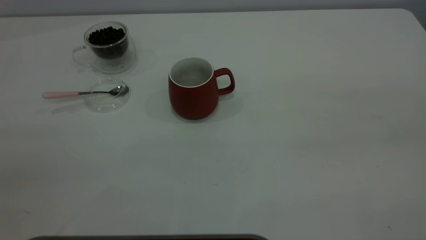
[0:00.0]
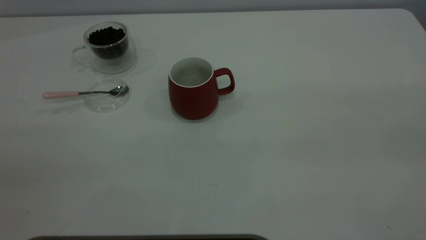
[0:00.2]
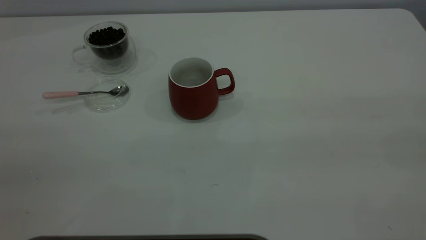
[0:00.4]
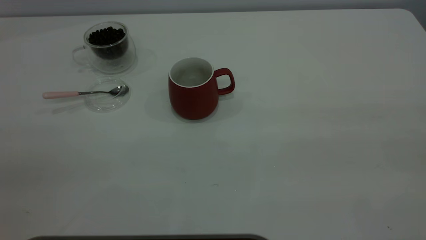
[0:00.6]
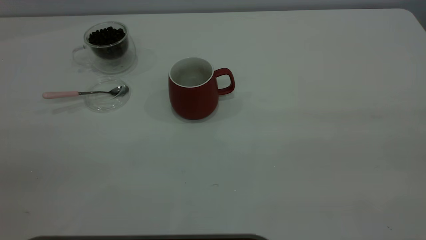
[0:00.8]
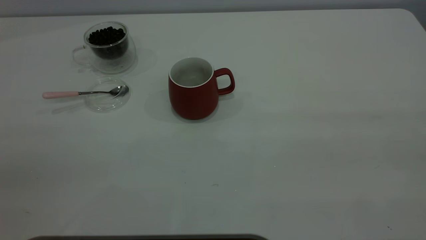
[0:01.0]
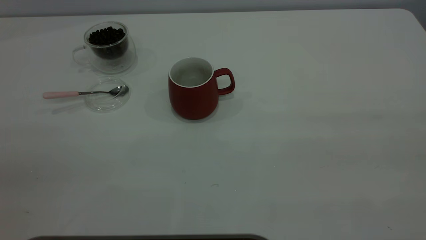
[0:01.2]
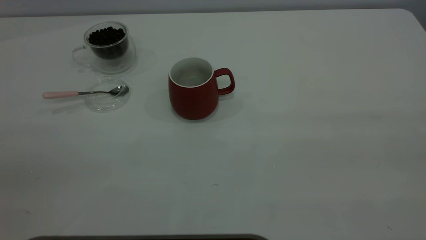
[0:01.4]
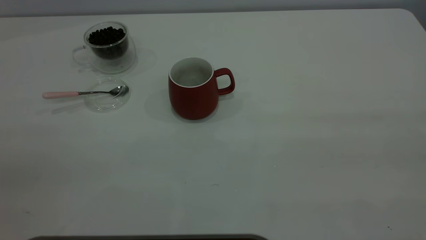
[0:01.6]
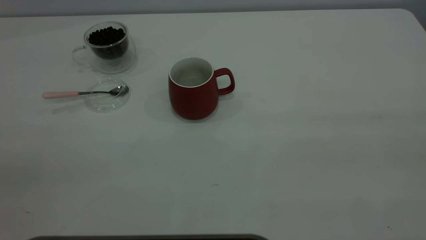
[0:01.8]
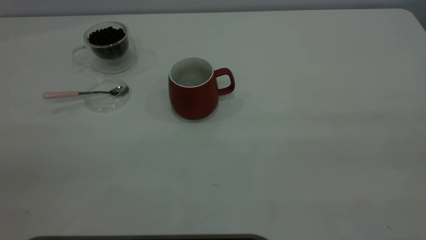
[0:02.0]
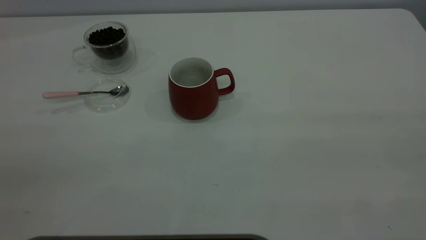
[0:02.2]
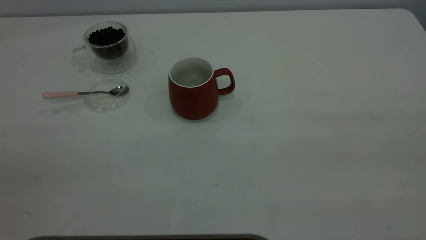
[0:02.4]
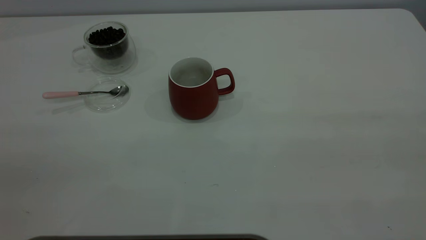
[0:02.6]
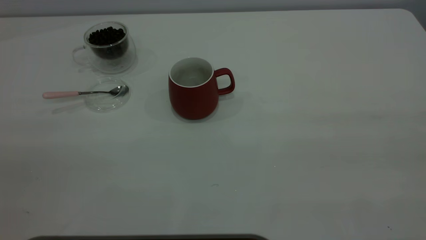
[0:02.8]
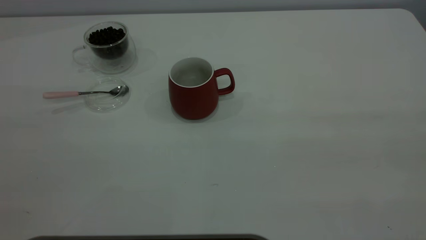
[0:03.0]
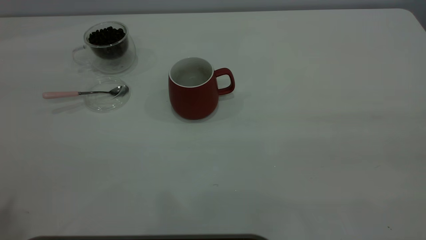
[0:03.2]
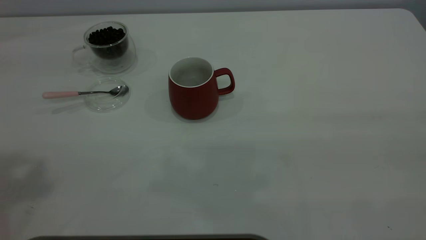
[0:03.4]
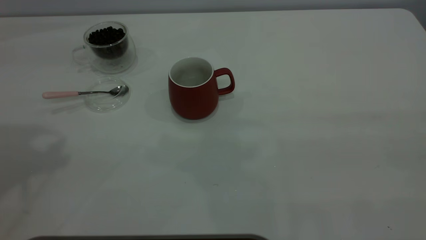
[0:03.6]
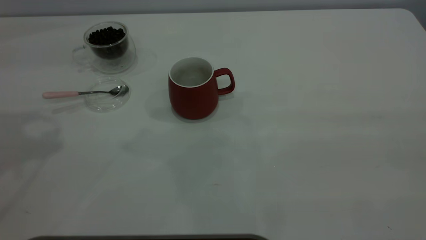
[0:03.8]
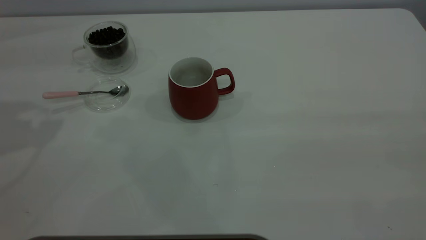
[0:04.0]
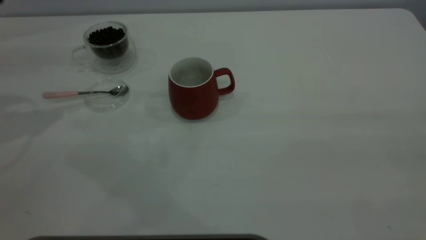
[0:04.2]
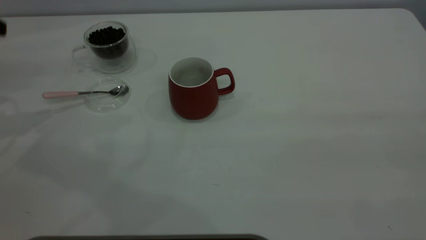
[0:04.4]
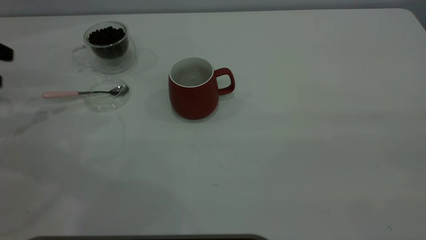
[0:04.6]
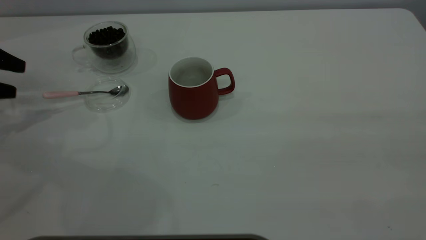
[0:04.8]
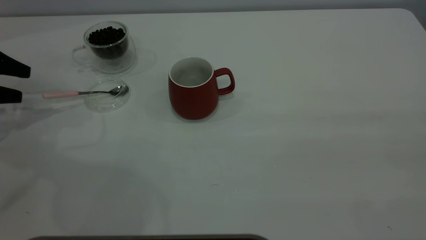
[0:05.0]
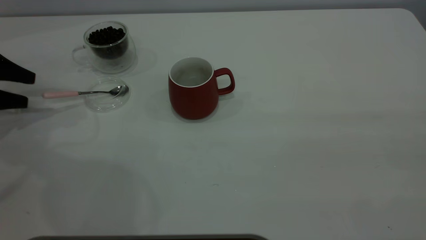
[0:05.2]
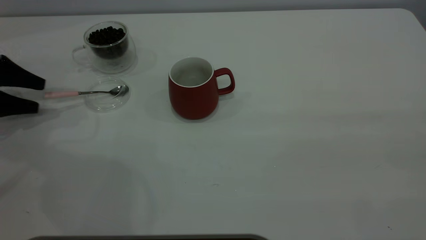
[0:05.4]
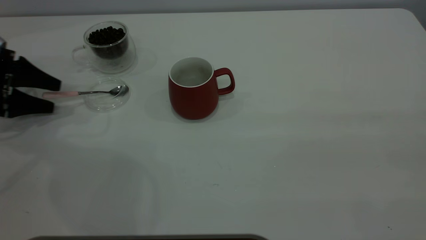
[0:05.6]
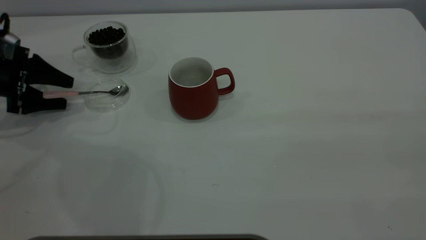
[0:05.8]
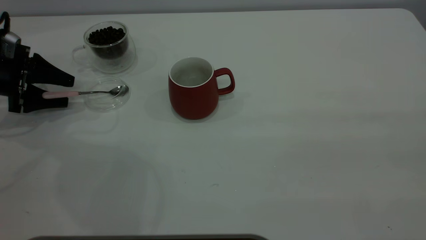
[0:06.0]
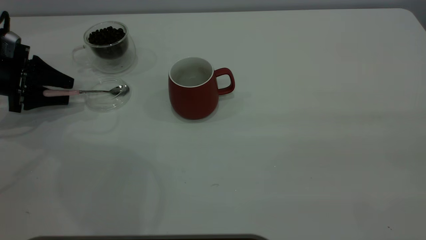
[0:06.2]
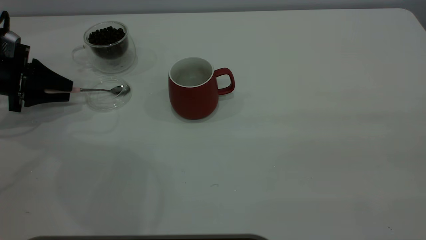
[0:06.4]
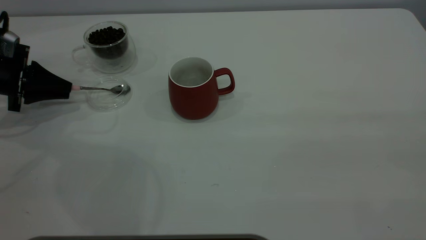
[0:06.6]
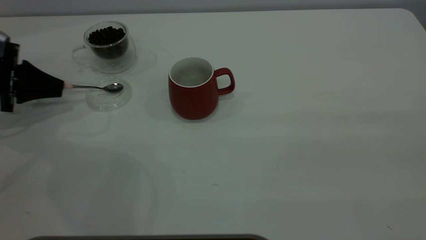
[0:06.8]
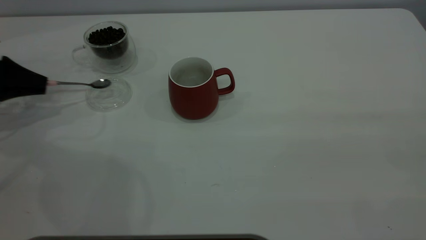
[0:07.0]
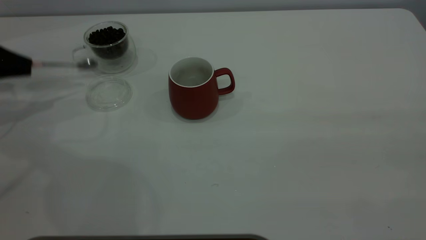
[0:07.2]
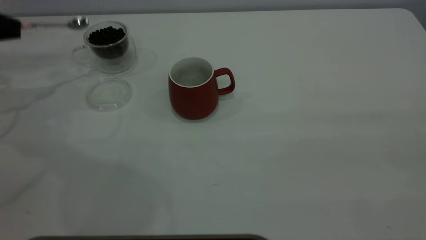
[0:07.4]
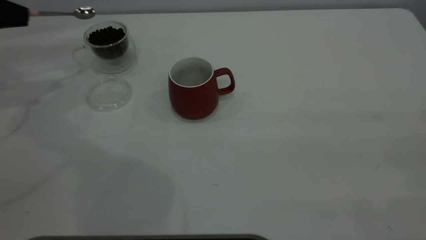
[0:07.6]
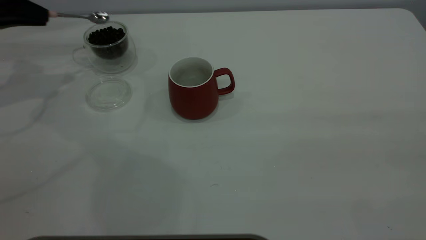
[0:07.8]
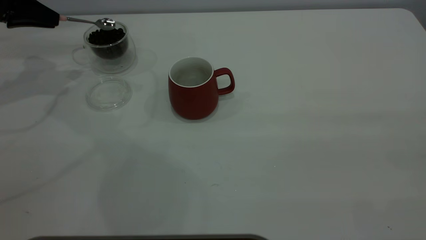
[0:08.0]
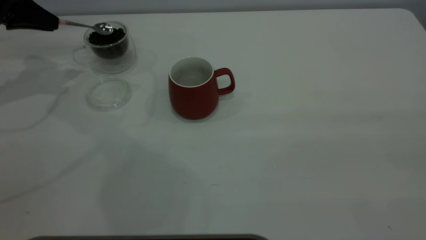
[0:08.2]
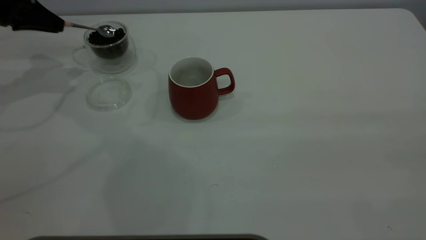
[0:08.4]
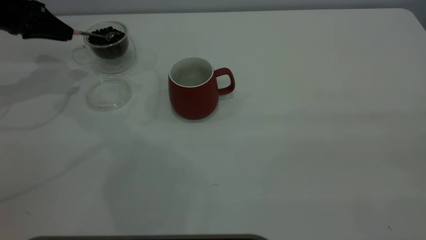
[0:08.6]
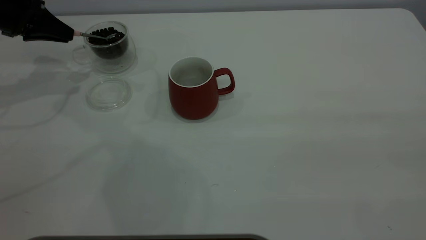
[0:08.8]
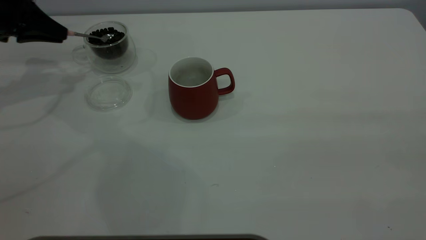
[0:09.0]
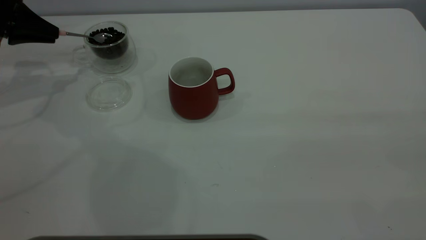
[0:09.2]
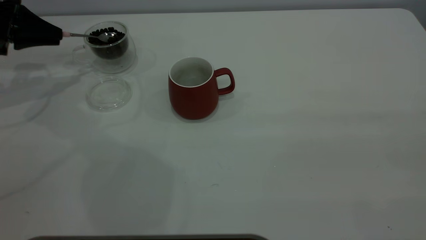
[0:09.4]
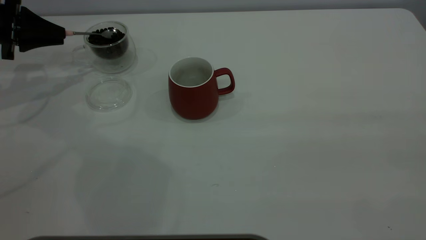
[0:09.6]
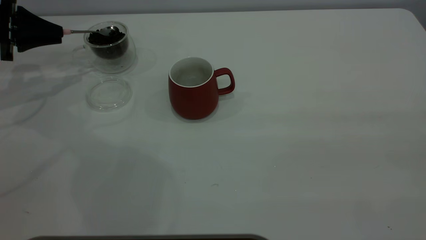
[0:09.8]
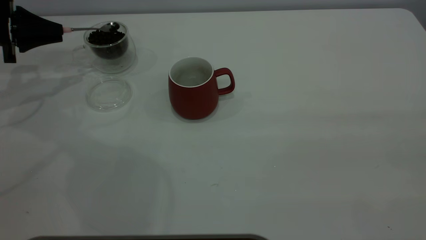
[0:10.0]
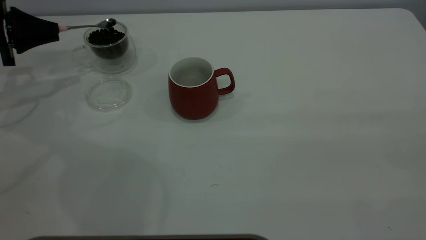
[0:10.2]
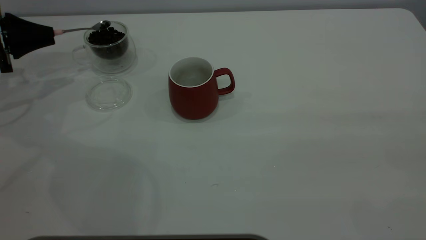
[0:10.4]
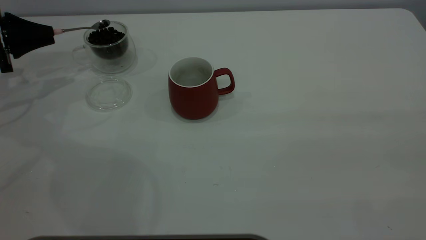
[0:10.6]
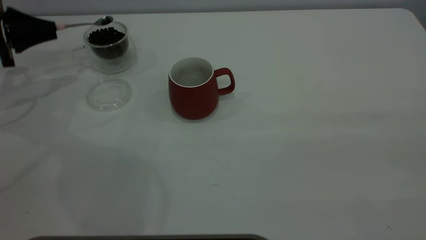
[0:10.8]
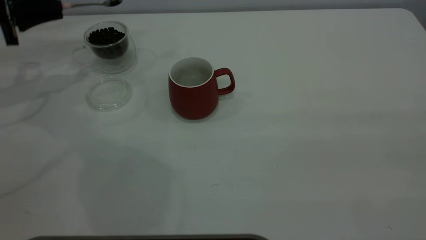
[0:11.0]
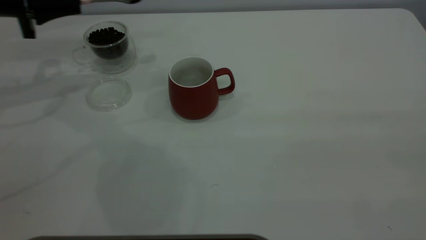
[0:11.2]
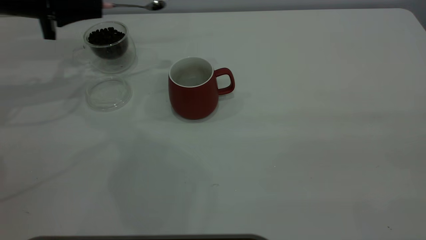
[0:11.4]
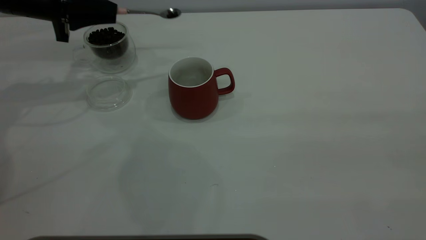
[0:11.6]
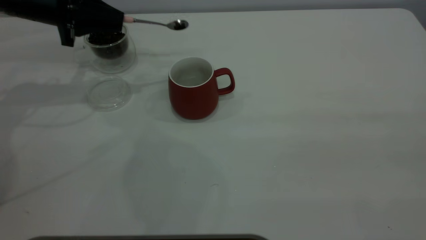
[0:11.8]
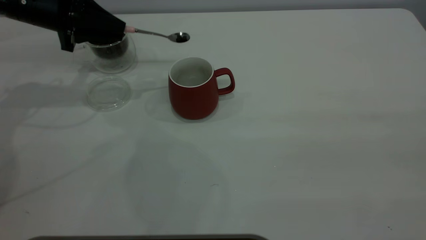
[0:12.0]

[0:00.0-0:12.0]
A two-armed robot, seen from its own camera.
Task of the whole recording: the right gripper place the red cup in the center of the table, the left gripper take the pink spoon from the cup lid and scoop out the coffee beans from the coffee cup and put them into the red cup, the left gripper put the spoon back into the cup lid.
Step, 0:00.0 to 0:07.2: Pick up the spoon.
0:04.4 to 0:06.0: The left gripper goes about 15 cm downward and forward.
0:06.0 to 0:07.6: The left gripper goes some 10 cm upward, and closes its fingers.
0:09.0 to 0:10.4: The left gripper shifts by some 5 cm.
0:10.4 to 0:12.0: The left gripper travels to the right by some 15 cm.

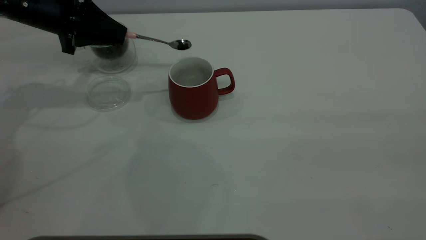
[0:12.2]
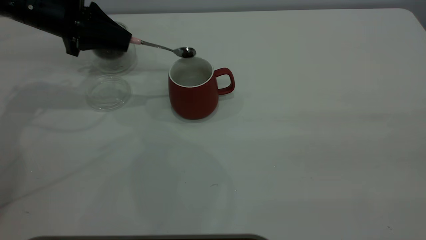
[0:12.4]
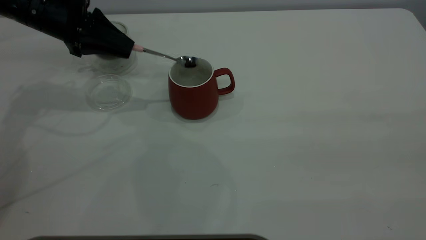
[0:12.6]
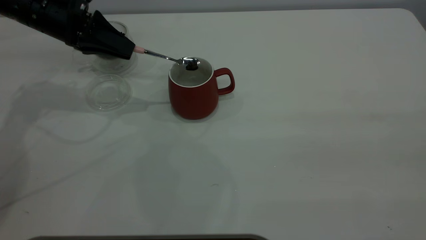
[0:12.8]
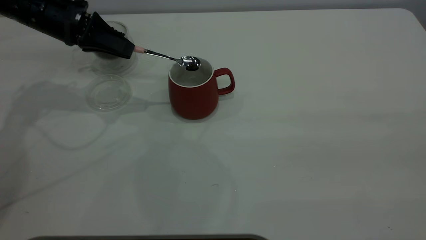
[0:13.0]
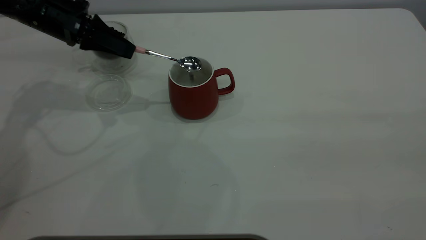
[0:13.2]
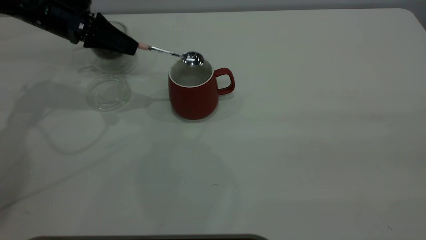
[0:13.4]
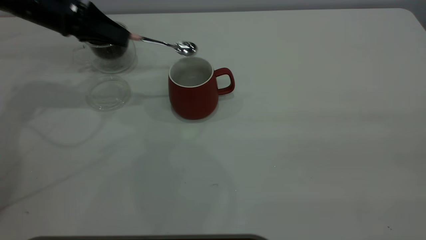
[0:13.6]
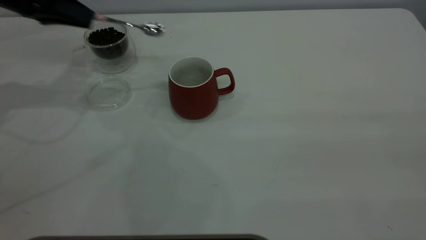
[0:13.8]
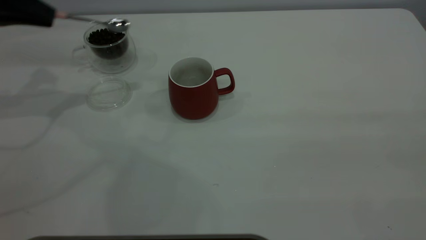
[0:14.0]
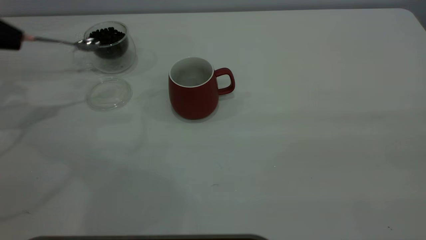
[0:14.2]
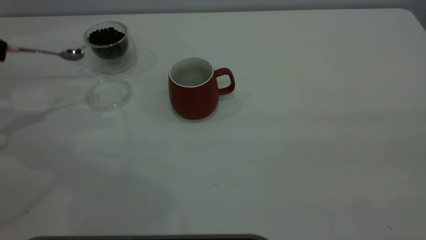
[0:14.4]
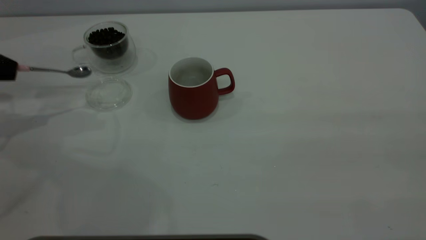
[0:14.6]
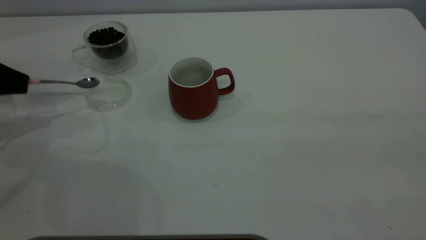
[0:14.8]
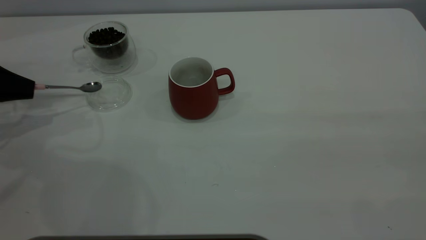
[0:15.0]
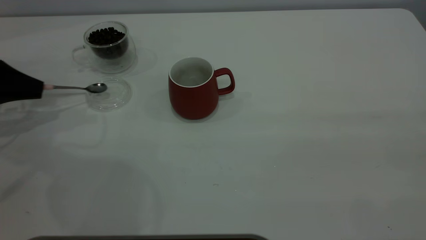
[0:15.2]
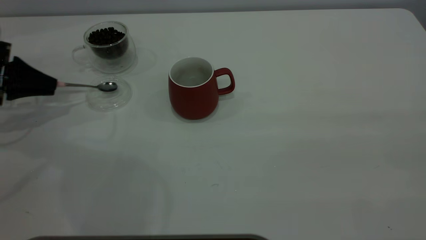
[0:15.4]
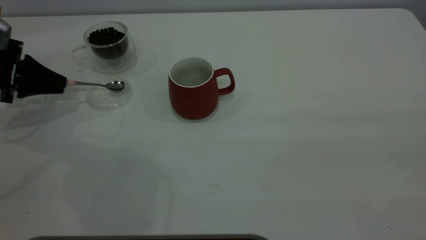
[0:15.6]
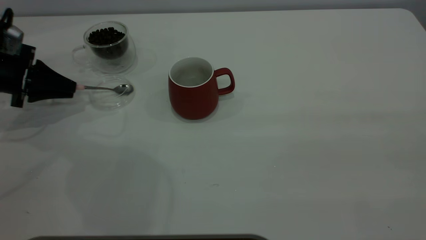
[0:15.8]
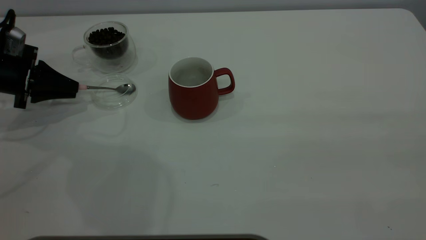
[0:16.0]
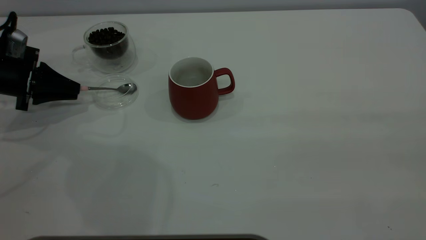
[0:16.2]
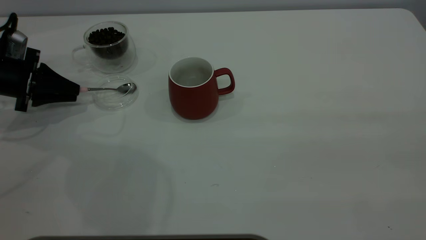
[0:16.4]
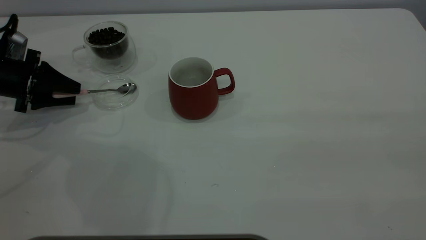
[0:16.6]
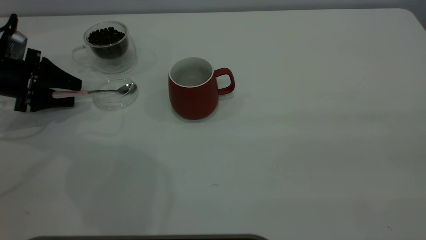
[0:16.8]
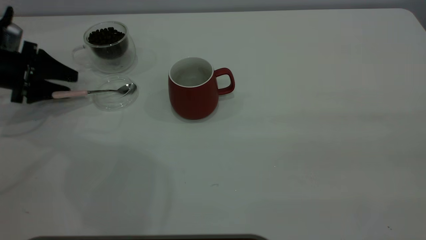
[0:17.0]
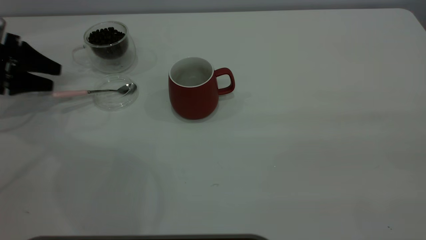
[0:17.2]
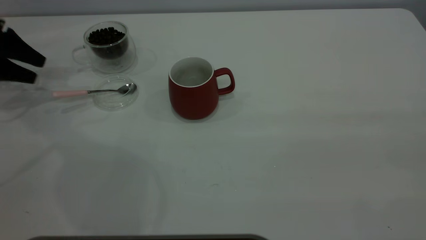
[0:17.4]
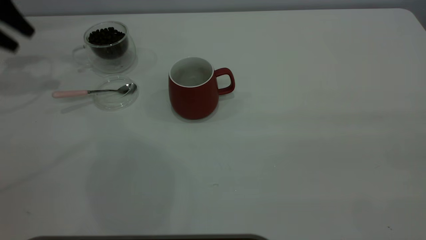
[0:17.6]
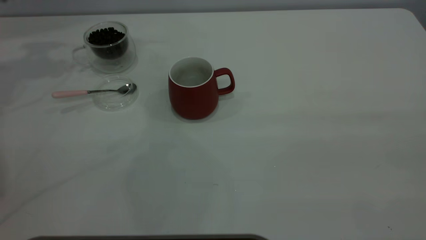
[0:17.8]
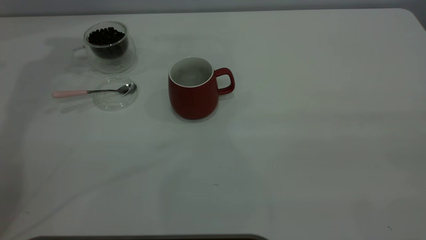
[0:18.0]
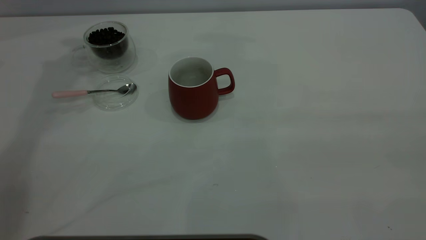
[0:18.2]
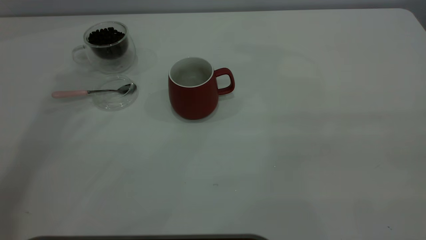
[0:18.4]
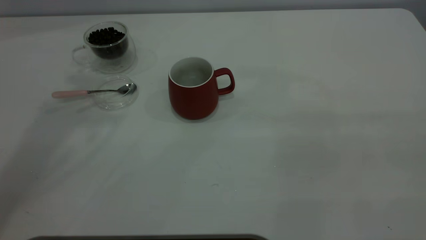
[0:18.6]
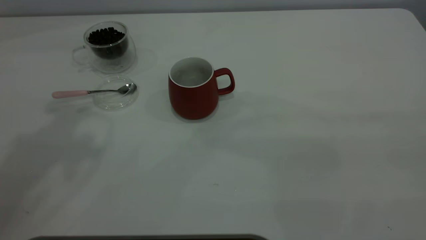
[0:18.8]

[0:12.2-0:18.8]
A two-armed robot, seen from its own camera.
Task of the whole recording: the right gripper place the red cup in the center of the table, the left gripper take the pink spoon from the cup lid and scoop out the coffee beans from the coffee cup and put them into the red cup, the left gripper put the spoon back into the cup lid.
Step, 0:13.8 to 0:17.6: Place the spoon back in its original place.
0:12.2 to 0:13.8: The left gripper goes approximately 5 cm to the left.
0:13.8 to 0:15.4: The left gripper goes approximately 15 cm downward and to the left.
0:15.4 to 0:17.2: The left gripper opens.
0:17.2 to 0:18.8: The left gripper goes about 40 cm upward, to the right and backward.
